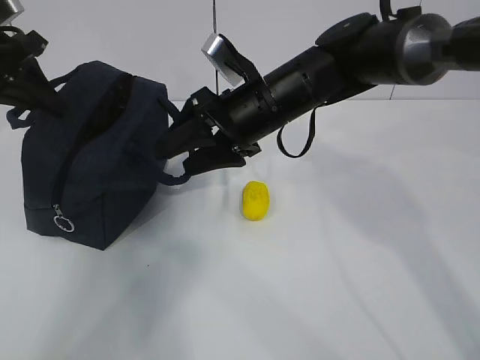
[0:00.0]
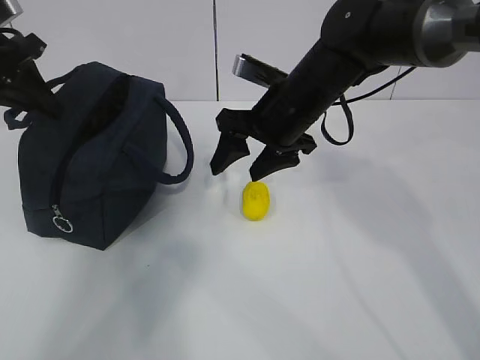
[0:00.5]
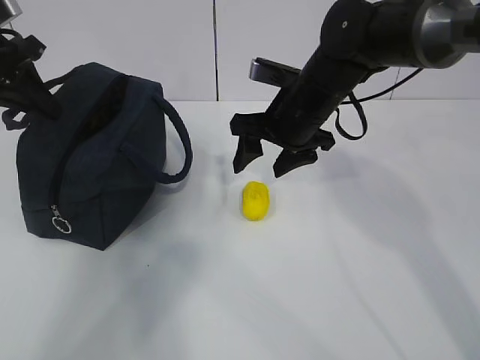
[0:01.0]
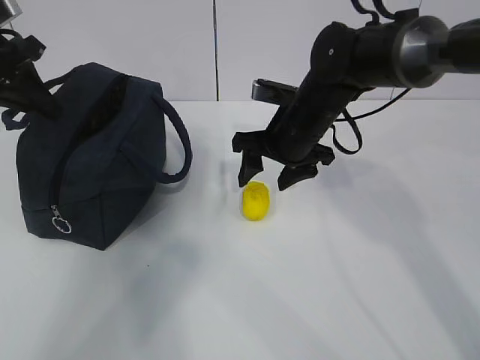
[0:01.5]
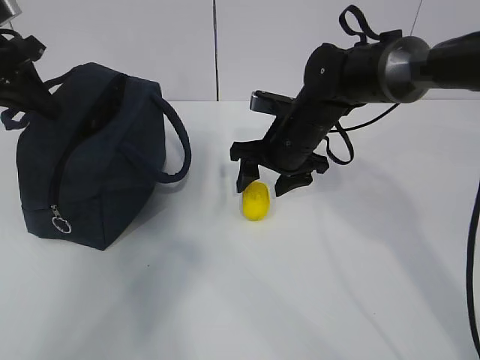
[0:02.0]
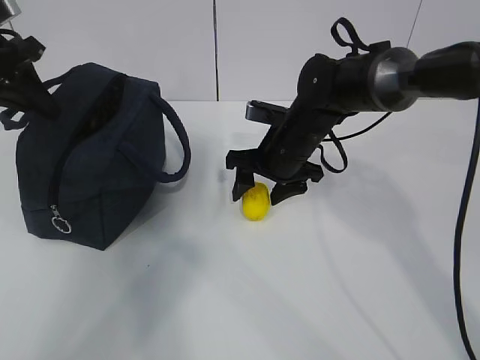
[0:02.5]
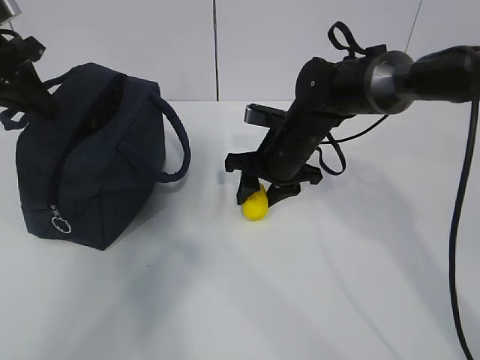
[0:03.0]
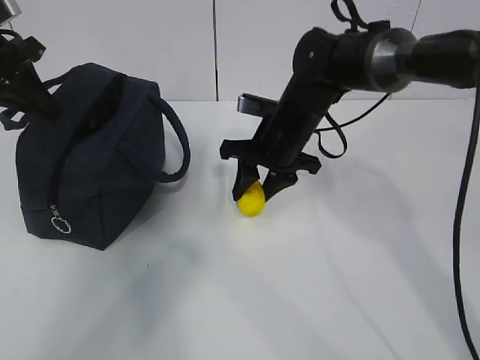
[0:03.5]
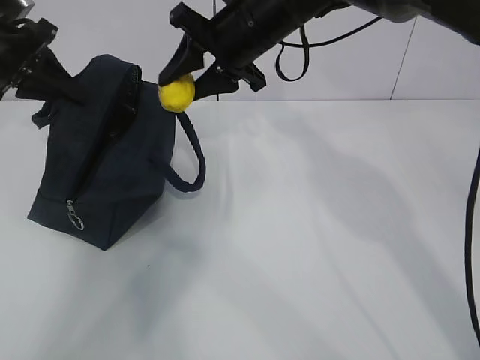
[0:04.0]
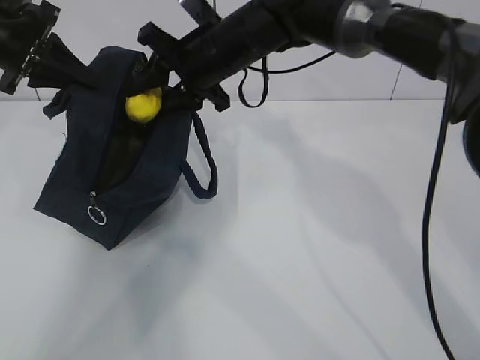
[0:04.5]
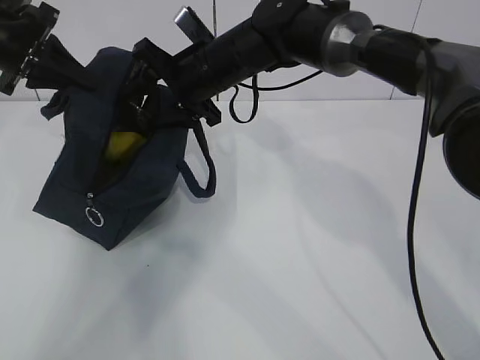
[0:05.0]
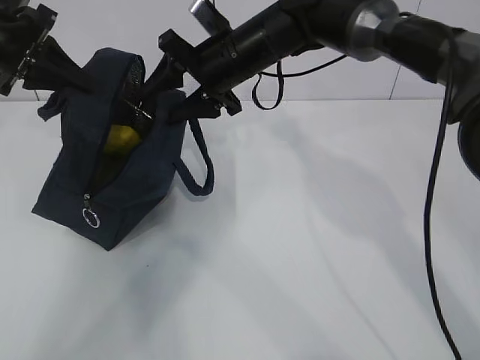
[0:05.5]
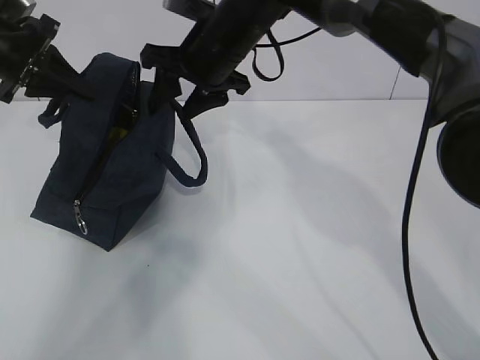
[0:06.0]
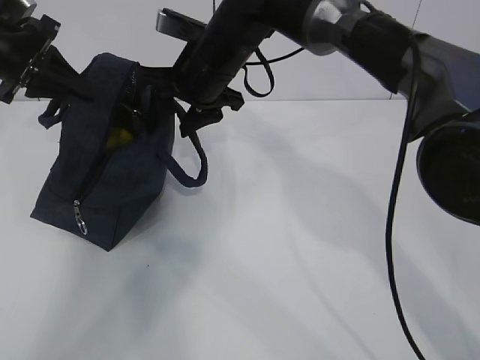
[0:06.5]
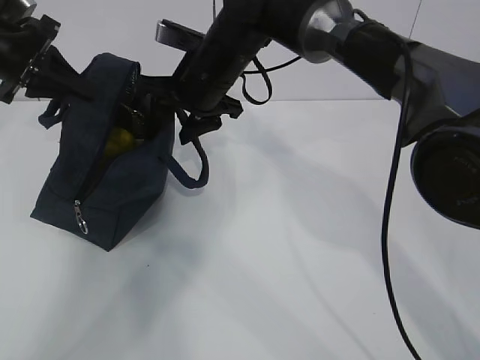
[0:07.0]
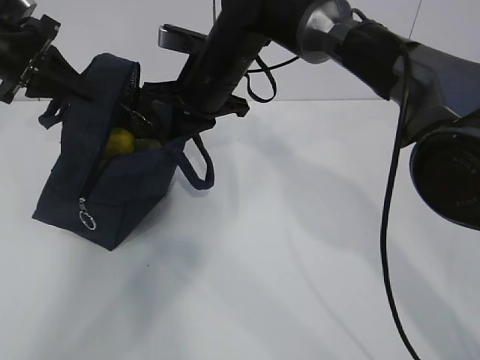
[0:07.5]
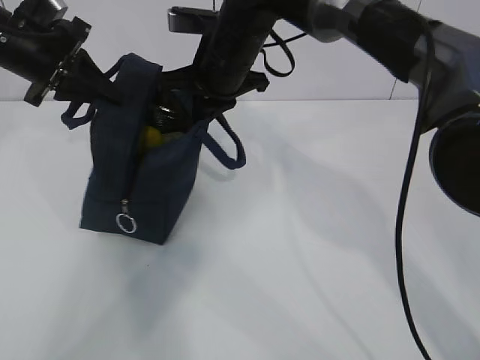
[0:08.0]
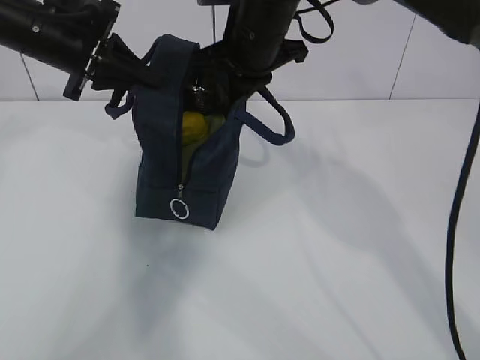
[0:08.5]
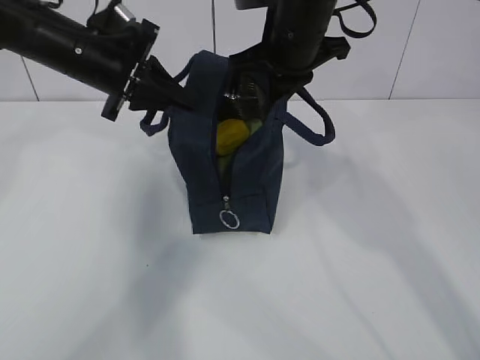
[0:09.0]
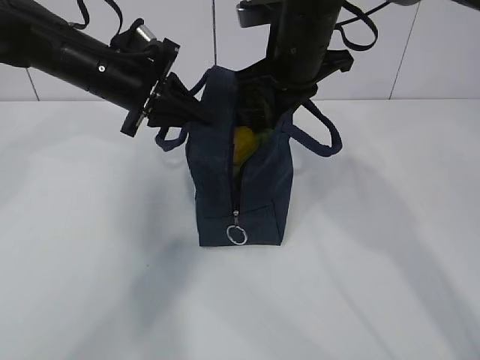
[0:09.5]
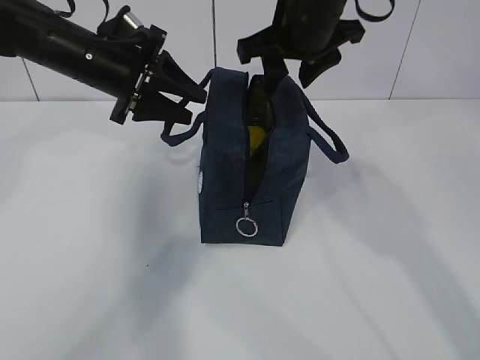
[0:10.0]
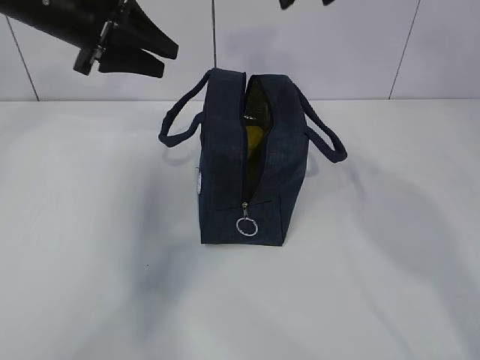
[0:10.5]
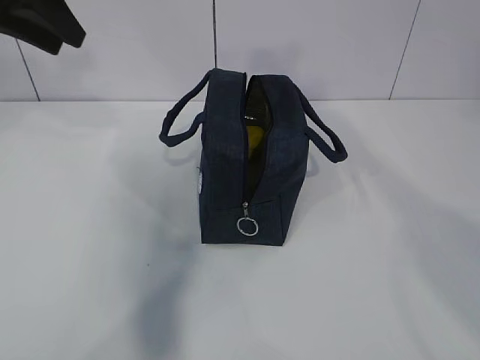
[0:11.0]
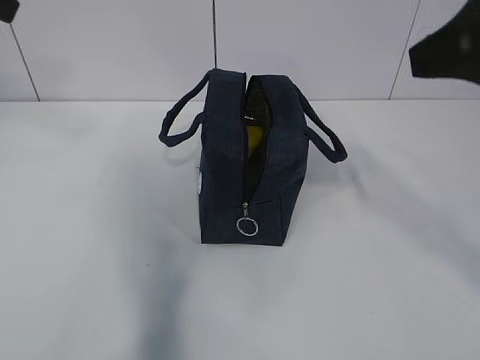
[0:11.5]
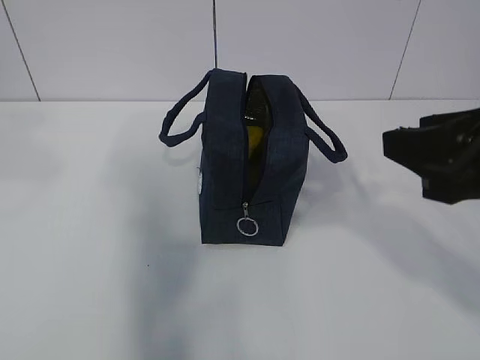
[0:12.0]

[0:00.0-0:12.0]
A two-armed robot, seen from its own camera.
Step, 0:00.0 to 0:01.0: Grab the lunch bag with your right hand.
Step, 0:01.5 to 0:03.0: Move the lunch bag to the right.
0:00.0 to 0:02.0: The right gripper heads downward, covering some 5 cm.
0:02.0 to 0:04.0: The right gripper goes approximately 15 cm upward, and closes its fingers.
0:06.0 to 0:08.0: The right gripper closes.
0:08.0 to 0:10.0: The left gripper shifts approximately 10 cm to the right, and opens up; the right gripper goes about 10 cm to the right and upward, and opens up.
0:10.0 to 0:12.0: The left gripper goes about 30 cm backward, upward and to the left; the right gripper shifts about 25 cm backward and to the right.

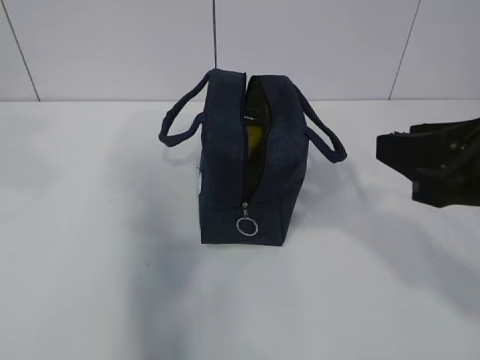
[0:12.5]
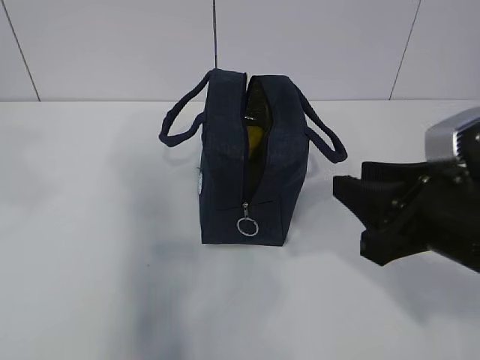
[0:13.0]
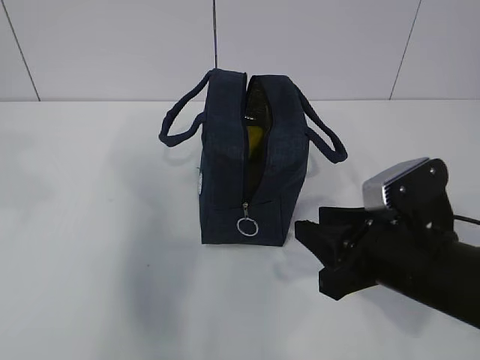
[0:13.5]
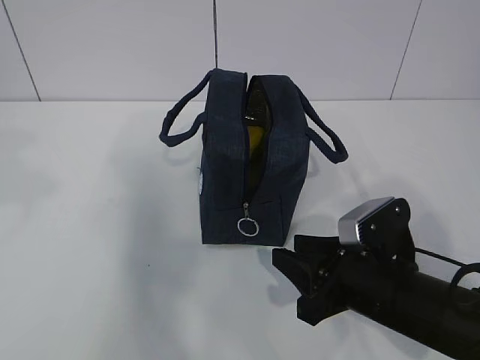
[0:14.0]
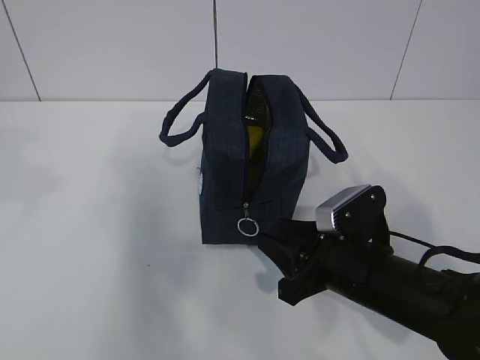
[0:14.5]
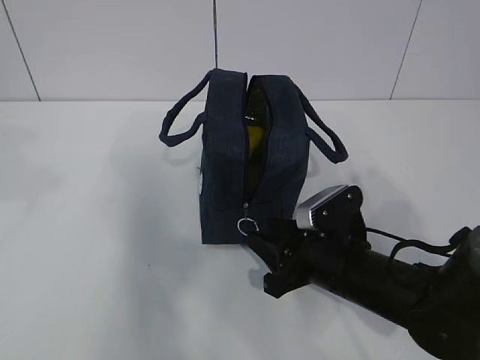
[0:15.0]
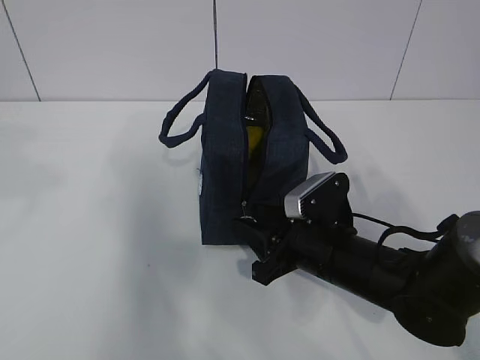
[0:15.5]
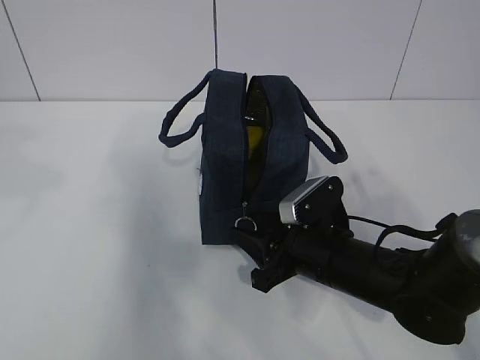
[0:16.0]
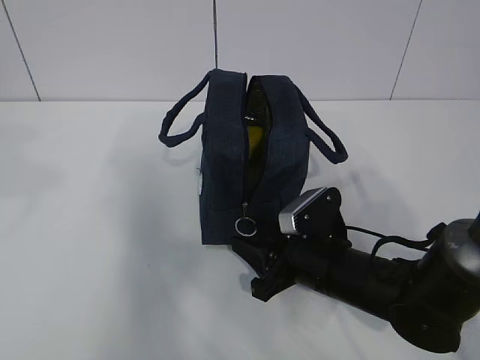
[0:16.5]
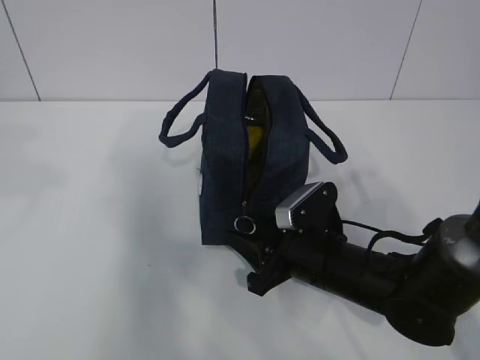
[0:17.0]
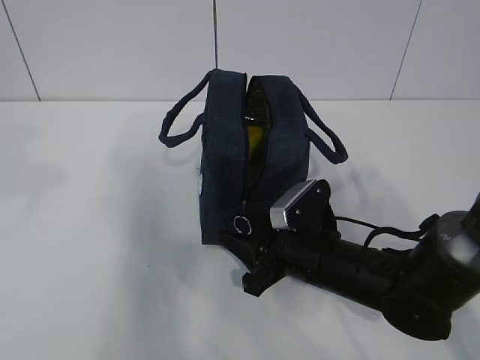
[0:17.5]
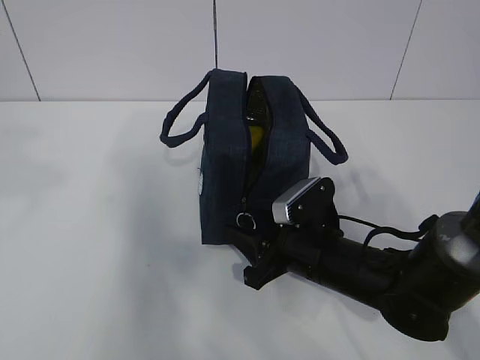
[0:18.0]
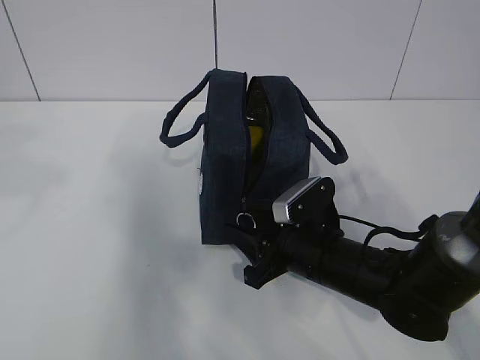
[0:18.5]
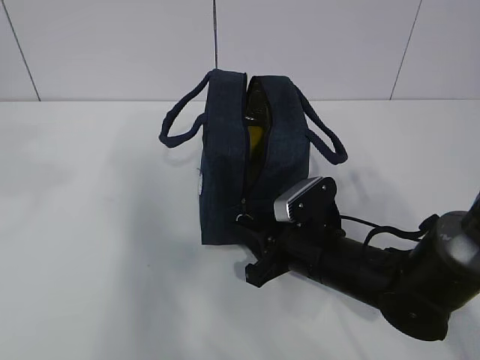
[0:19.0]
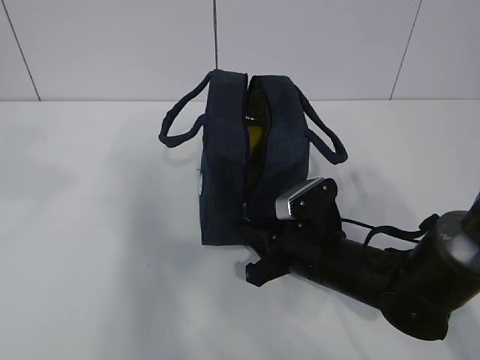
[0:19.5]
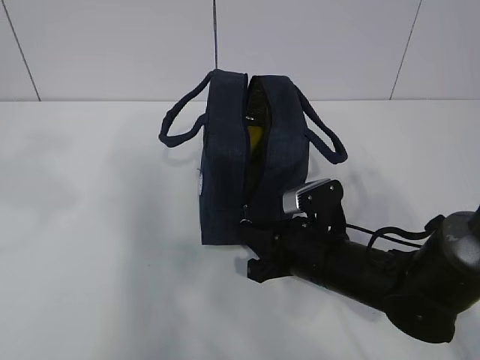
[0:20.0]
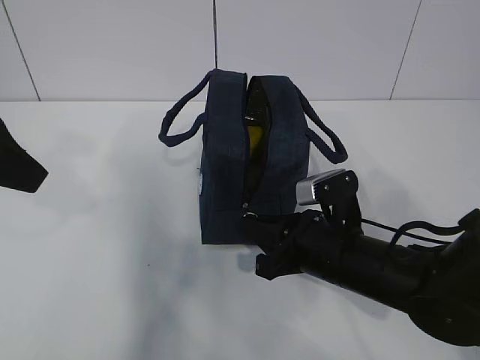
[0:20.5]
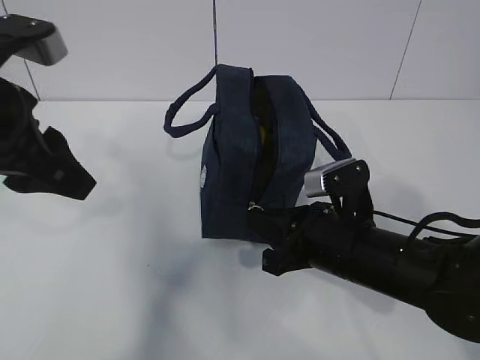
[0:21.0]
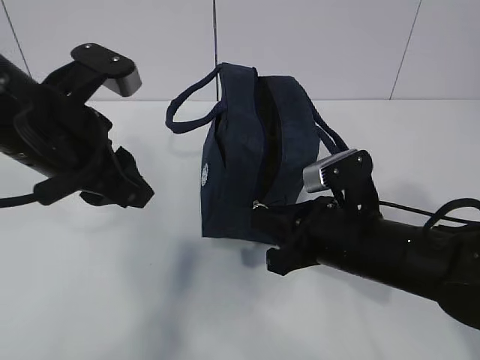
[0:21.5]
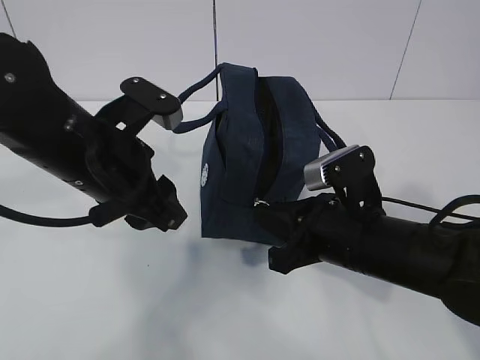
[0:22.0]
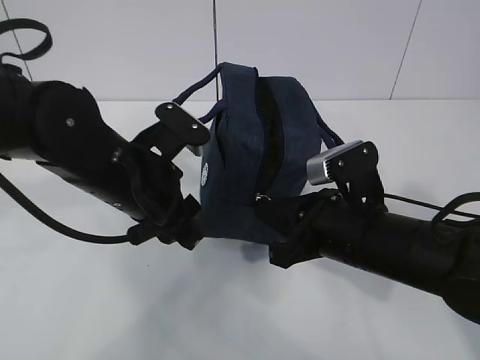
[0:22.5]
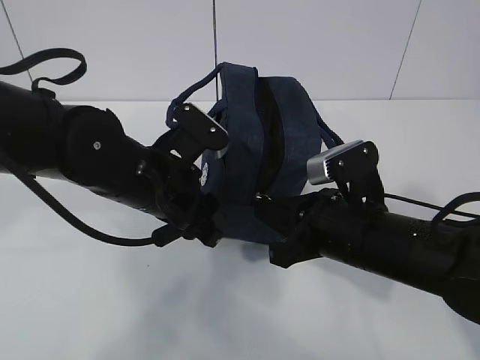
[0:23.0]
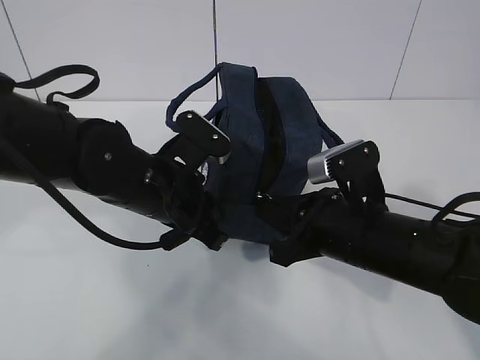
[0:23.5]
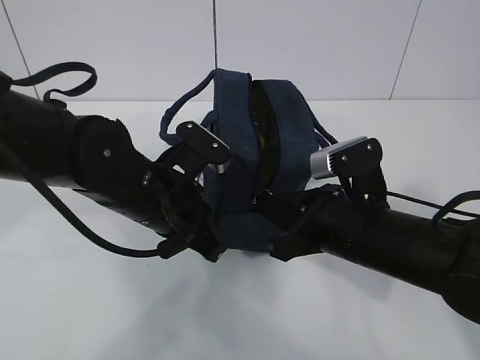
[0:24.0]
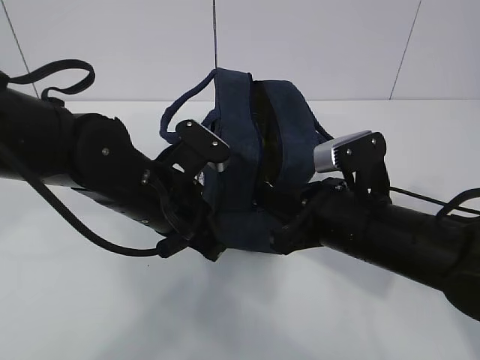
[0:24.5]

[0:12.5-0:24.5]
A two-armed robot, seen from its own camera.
Step, 0:12.5 to 0:18.5: Grab the lunch bag with your left hand.
0:12.5 to 0:14.5: The right gripper shifts approximately 20 cm downward.
0:14.5 to 0:16.5: The right gripper ends up roughly 5 cm from where it was.
0:16.5 to 0:18.5: Both grippers stay put.
0:18.5 to 0:20.5: The left gripper moves downward, some 5 cm, while the right gripper closes up.
0:20.5 to 0:22.5: The left gripper is displaced downward, to the right and forward by some 20 cm; the right gripper changes place by about 5 cm.
0:22.5 to 0:24.5: The left gripper closes its fingers.

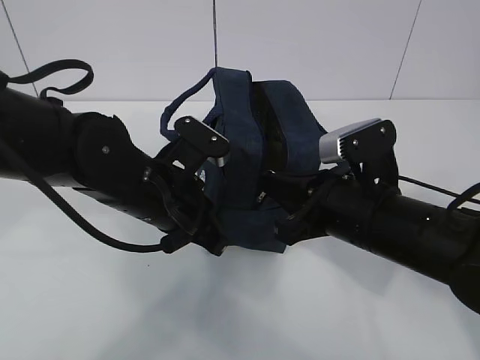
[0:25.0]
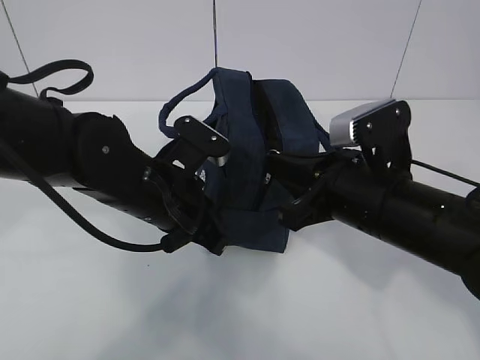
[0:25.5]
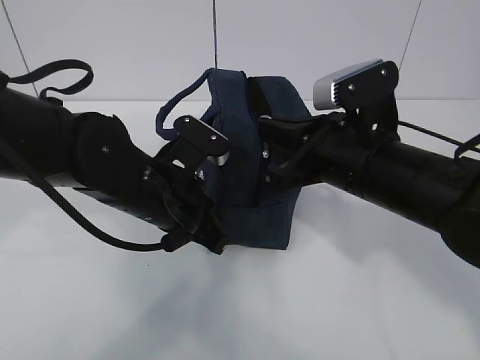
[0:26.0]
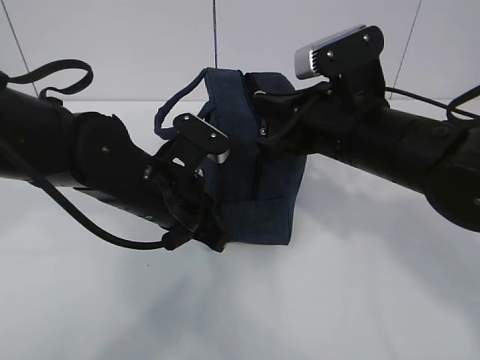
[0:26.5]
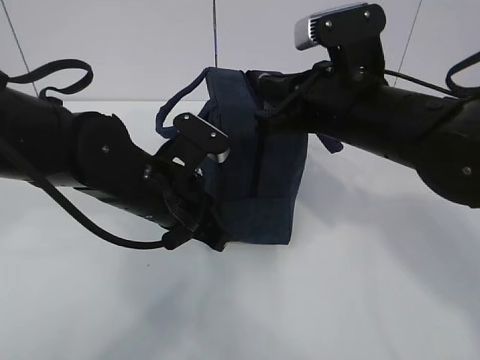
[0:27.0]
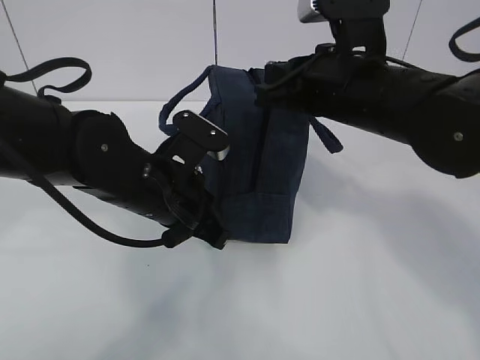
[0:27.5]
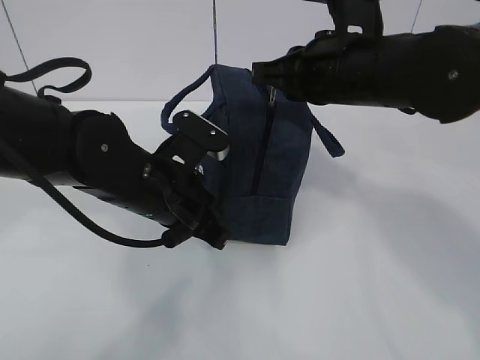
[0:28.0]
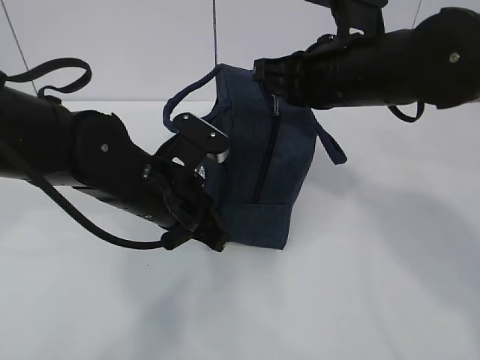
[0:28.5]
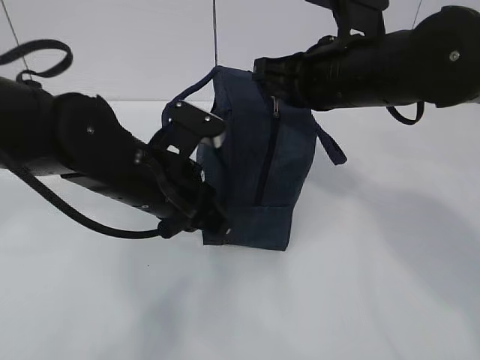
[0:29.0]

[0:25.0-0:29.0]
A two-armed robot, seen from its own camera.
Step, 0:25.0 to 0:27.5: Pull the zipper with your right hand.
0:25.0 to 0:27.0: The right gripper goes about 10 cm upward and forward.
